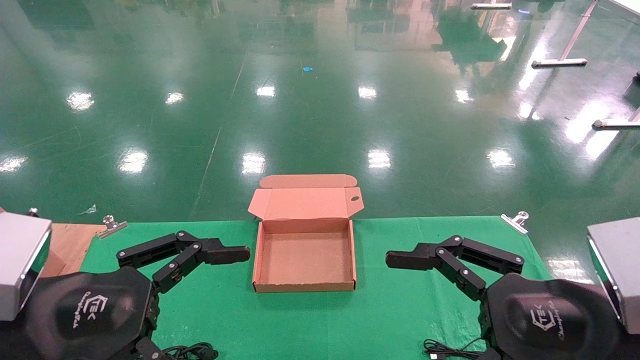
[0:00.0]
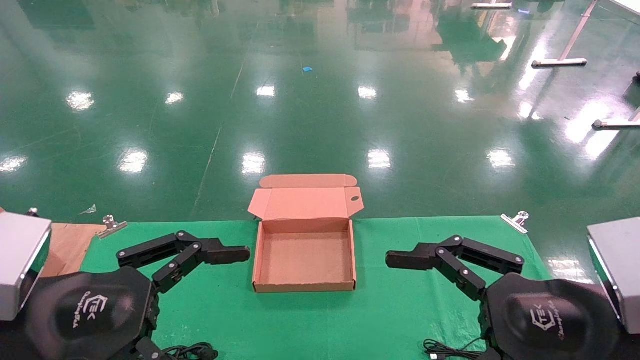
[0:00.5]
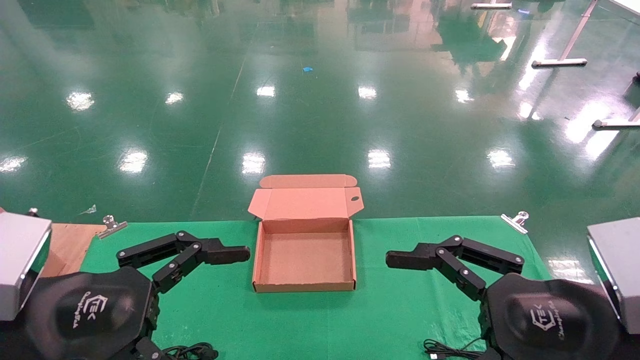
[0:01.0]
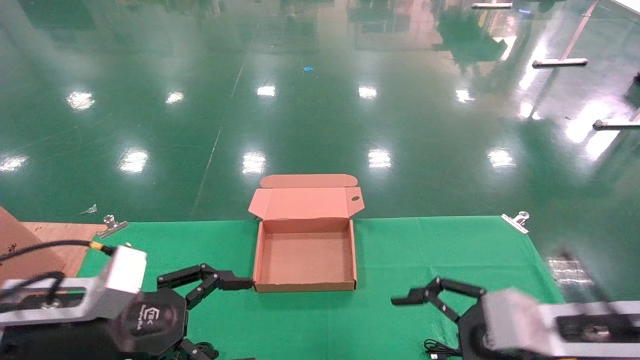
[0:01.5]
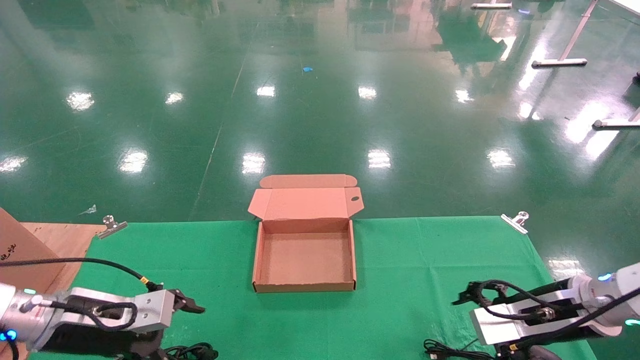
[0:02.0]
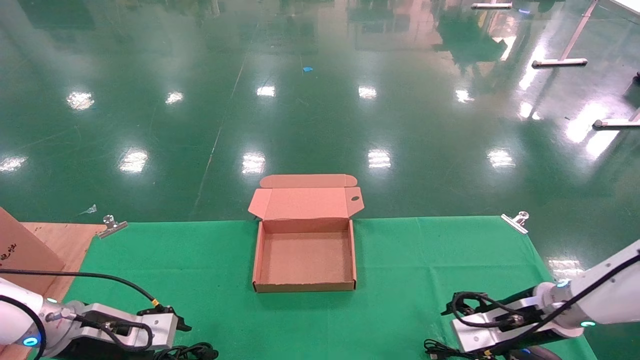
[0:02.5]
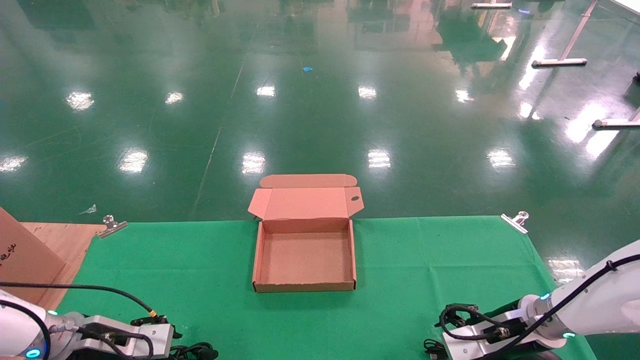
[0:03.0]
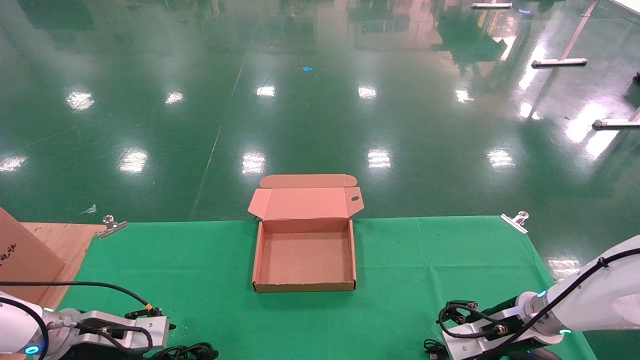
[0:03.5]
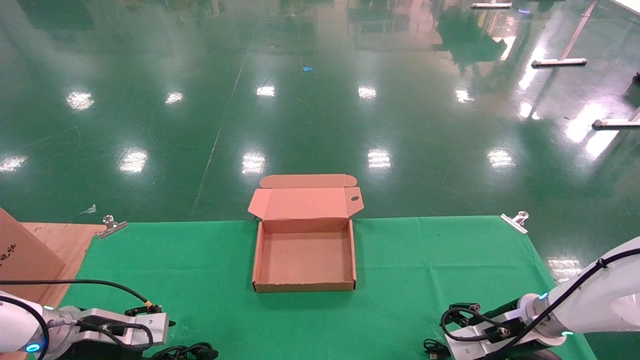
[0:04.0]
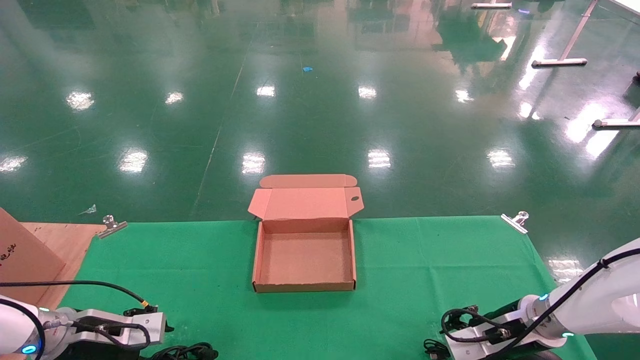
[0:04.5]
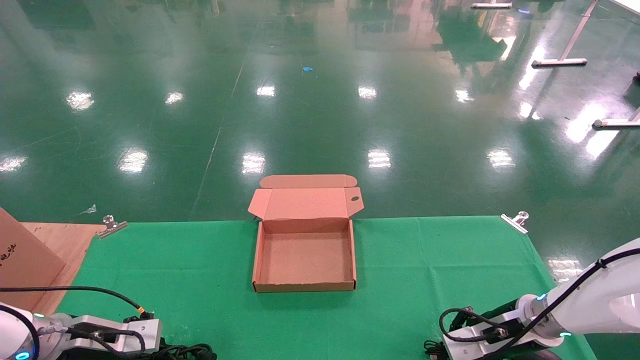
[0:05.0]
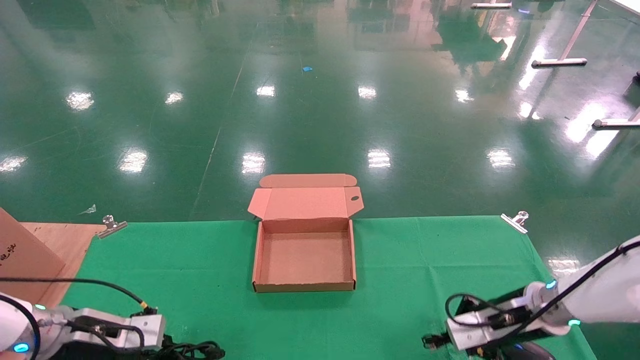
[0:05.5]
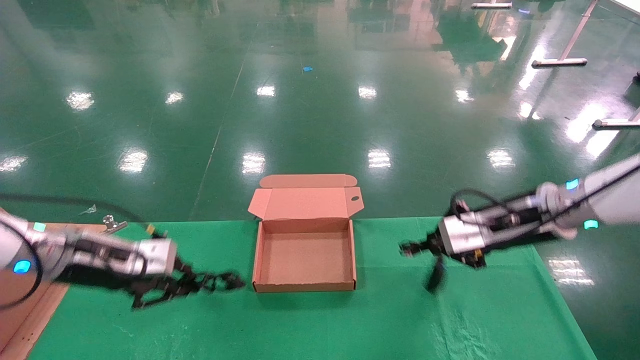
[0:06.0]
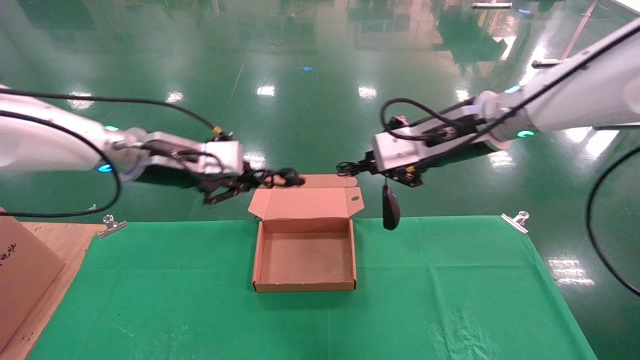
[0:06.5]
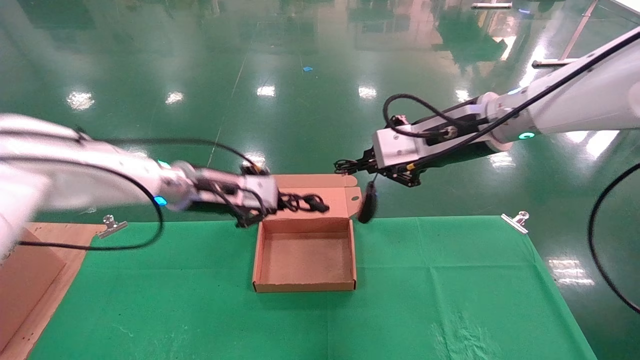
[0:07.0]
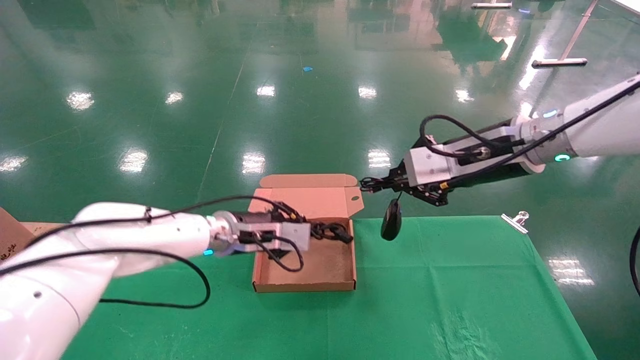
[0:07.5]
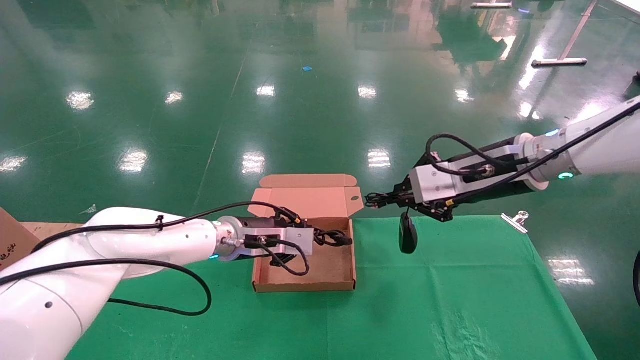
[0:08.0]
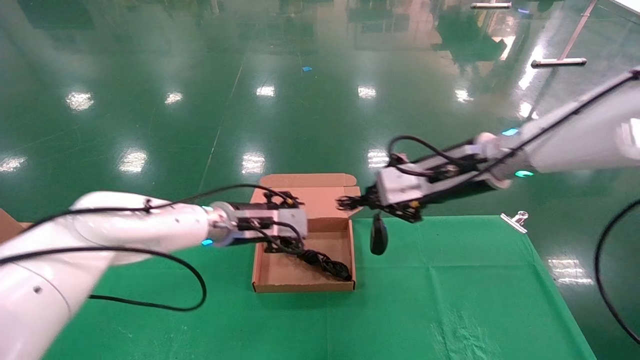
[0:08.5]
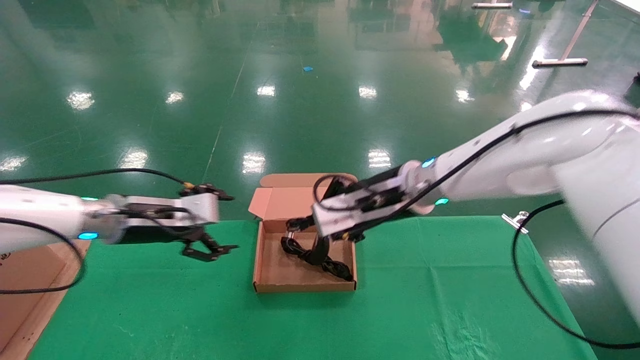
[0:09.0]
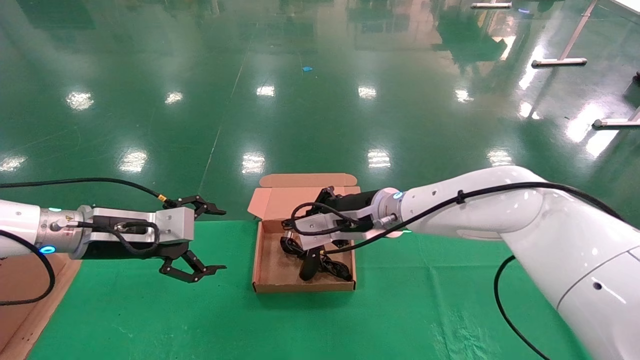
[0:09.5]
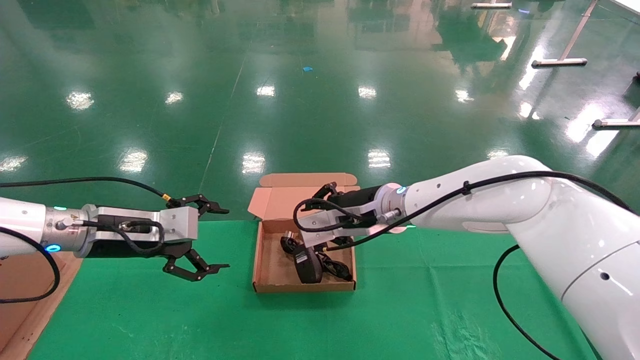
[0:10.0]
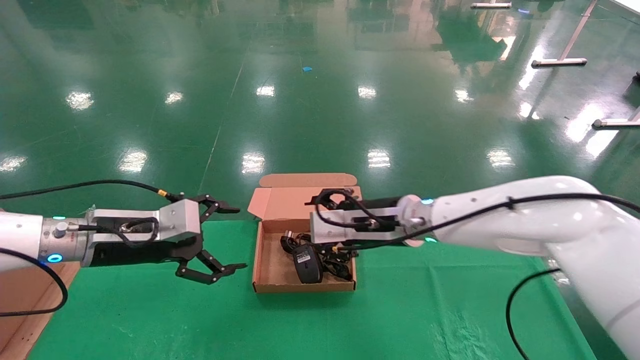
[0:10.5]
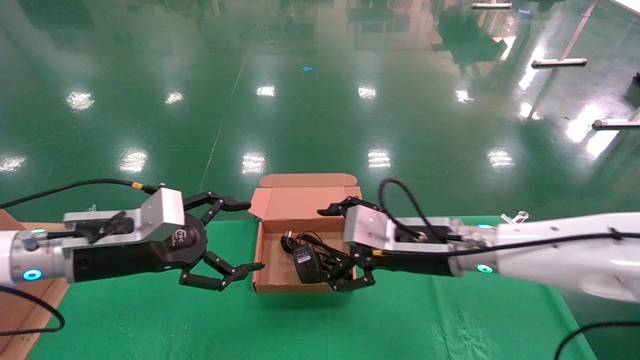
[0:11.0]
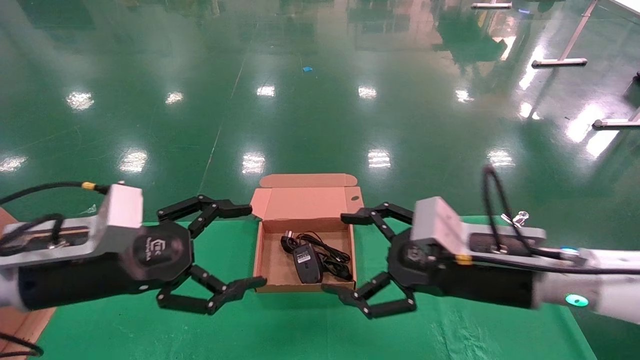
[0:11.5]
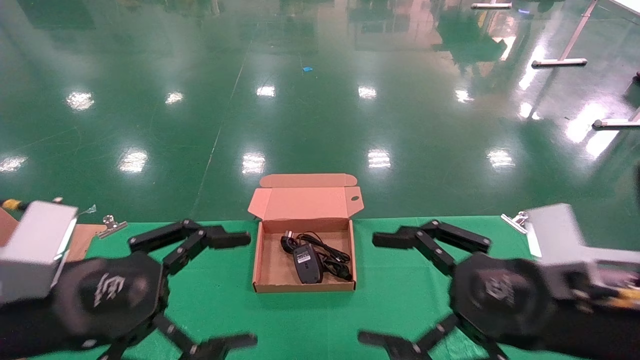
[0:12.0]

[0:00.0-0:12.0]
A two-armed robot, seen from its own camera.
Step, 0:01.5 to 0:05.5: Grab and lift both the mouse and power cord from the accessory packaging area at the same time.
Step, 0:06.0 to 0:10.5: Place the mouse and power cord into the box.
0:00.0 to 0:02.0: The grippers both shift forward and downward by roughly 20 cm.
0:02.0 to 0:04.0: The right gripper travels downward and forward by roughly 10 cm; the left gripper is displaced downward by approximately 5 cm.
0:04.0 to 0:06.0: The grippers both shift upward by approximately 15 cm. The right gripper closes up, while the left gripper closes up.
0:06.0 to 0:08.0: The right gripper goes some 5 cm upward. Meanwhile the left gripper goes about 20 cm to the right and forward.
0:08.0 to 0:10.0: The right gripper is displaced to the left and downward by about 20 cm, while the left gripper travels to the left and backward by some 20 cm, and opens up.
0:10.0 to 0:12.0: The right gripper travels backward and to the right by about 30 cm, and opens its fingers. The left gripper goes about 20 cm backward.

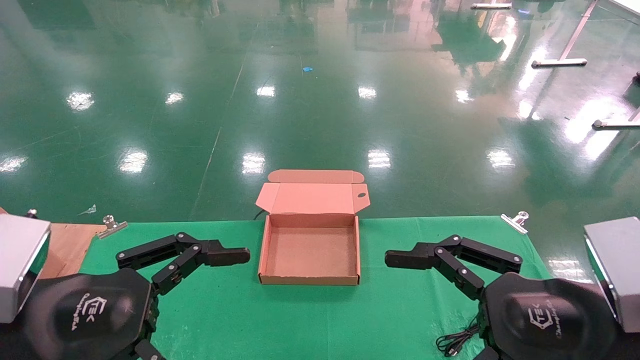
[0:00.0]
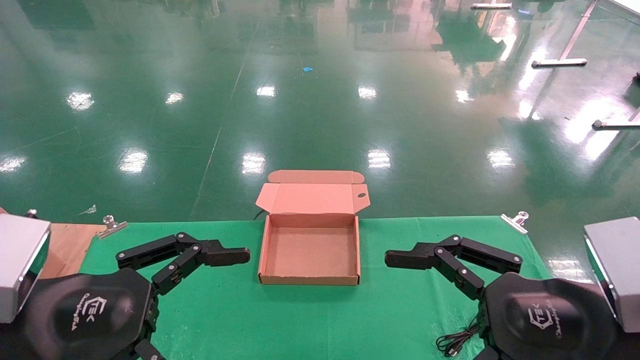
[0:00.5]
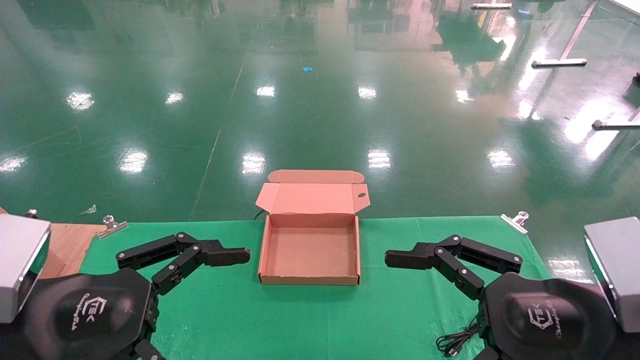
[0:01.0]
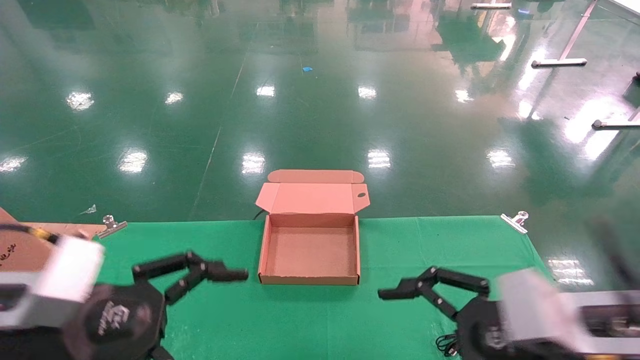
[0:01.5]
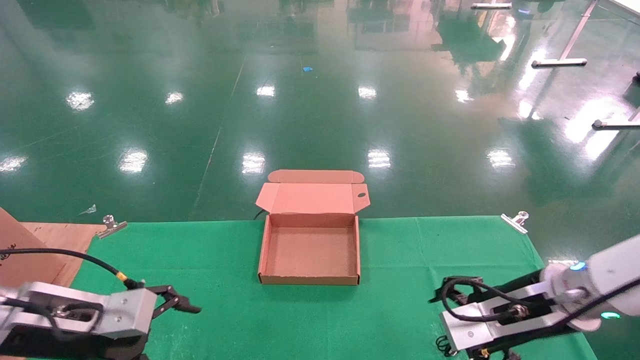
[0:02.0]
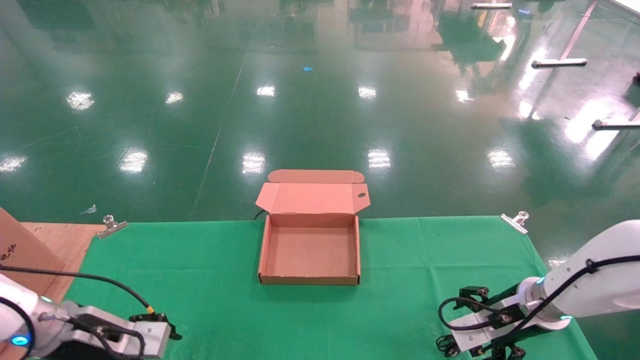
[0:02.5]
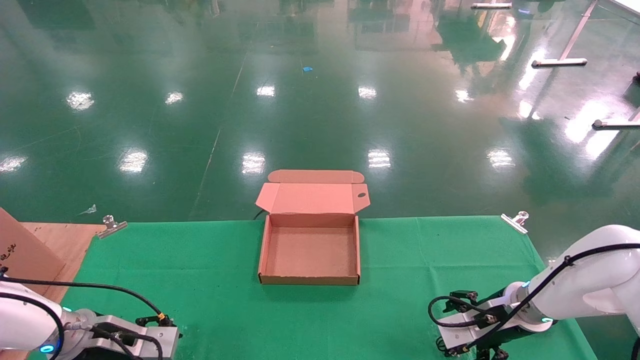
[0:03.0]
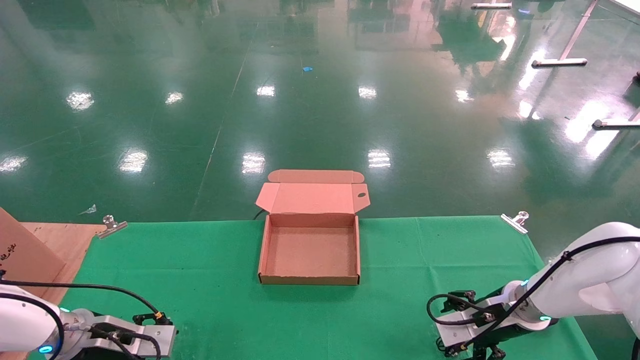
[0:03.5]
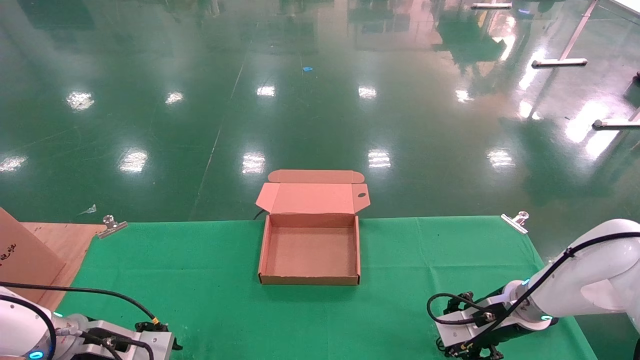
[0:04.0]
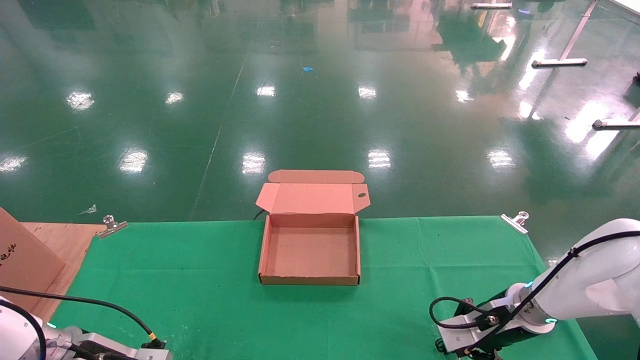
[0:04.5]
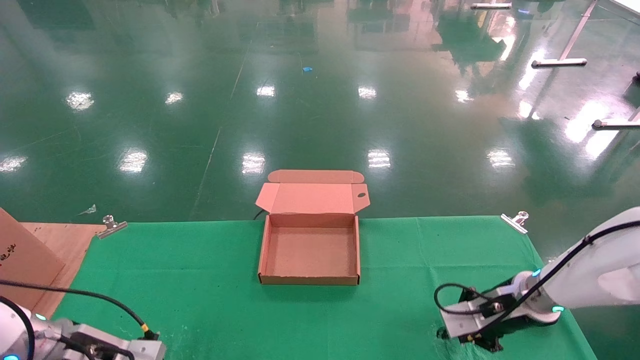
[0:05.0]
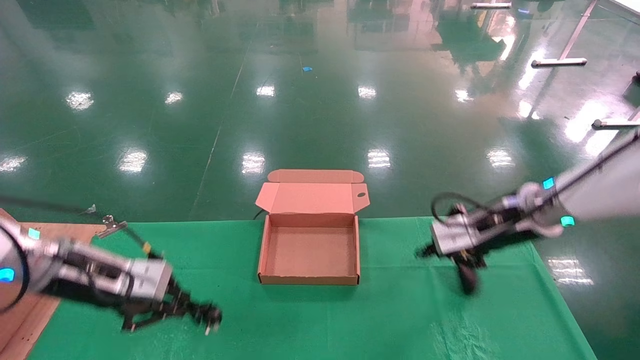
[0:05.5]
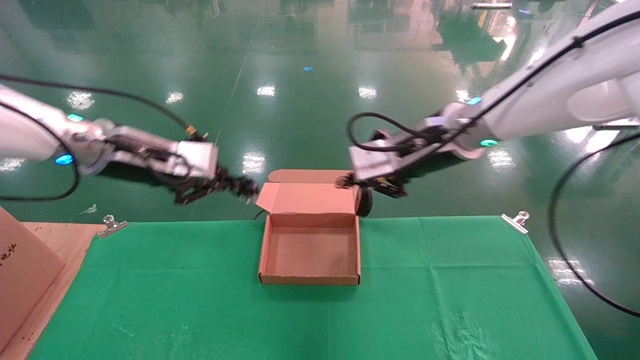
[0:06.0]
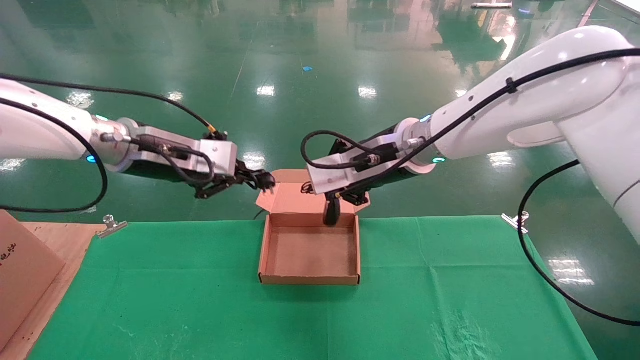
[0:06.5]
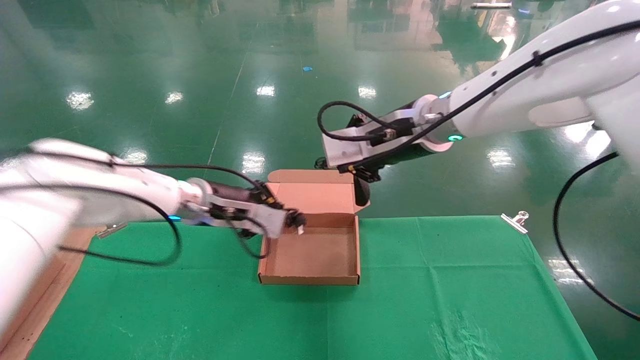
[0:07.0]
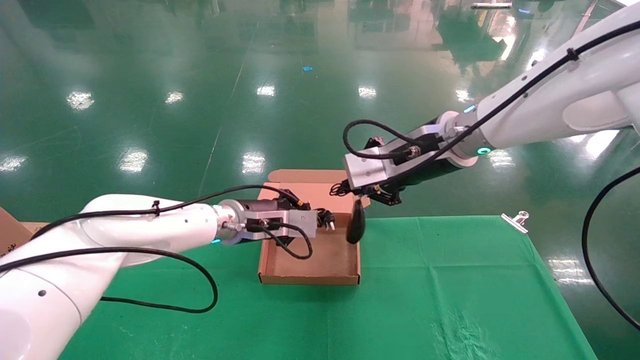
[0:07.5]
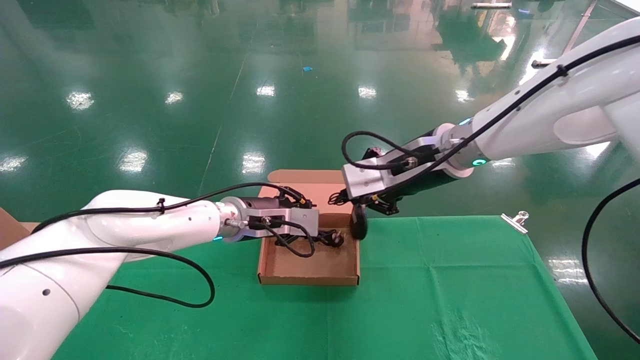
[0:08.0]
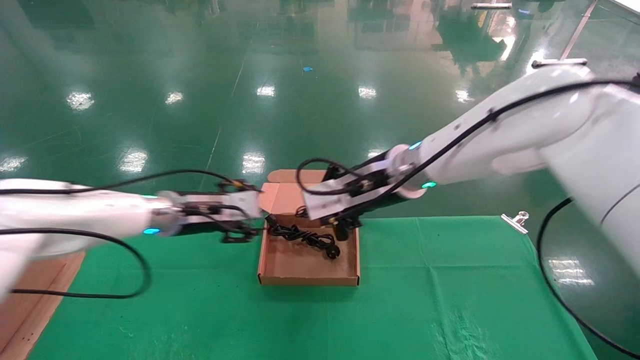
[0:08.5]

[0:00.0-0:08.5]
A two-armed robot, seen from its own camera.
Step, 0:02.0 to 0:05.0: Grab and lift both the mouse and power cord from the accessory packaging area at the same time.
0:00.0 to 0:02.0: The right gripper travels forward and downward by about 15 cm. The left gripper travels forward, downward and to the left by about 15 cm.
0:02.0 to 0:04.0: The left gripper shifts approximately 15 cm downward and forward, while the right gripper travels forward and downward by some 10 cm.
0:04.0 to 0:06.5: The left gripper shifts roughly 30 cm upward and to the right, and closes its fingers. Meanwhile the right gripper is displaced upward and to the left by roughly 30 cm, and closes its fingers.
0:06.5 to 0:08.5: The left gripper heads downward and forward, covering about 10 cm, and opens up.
